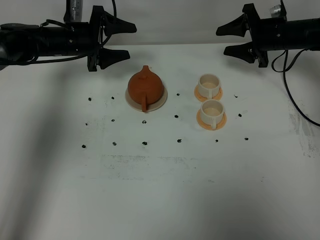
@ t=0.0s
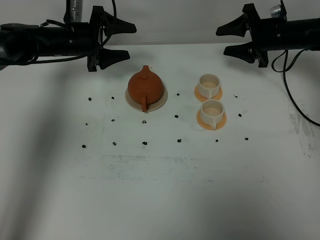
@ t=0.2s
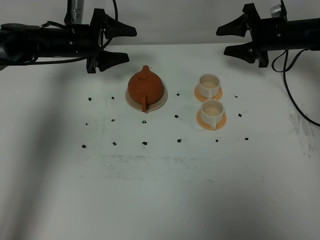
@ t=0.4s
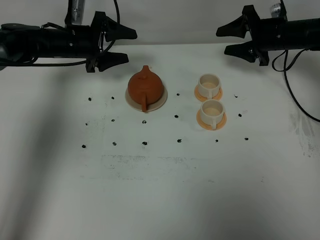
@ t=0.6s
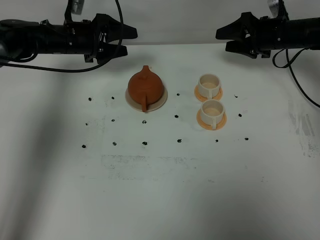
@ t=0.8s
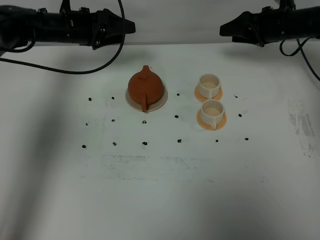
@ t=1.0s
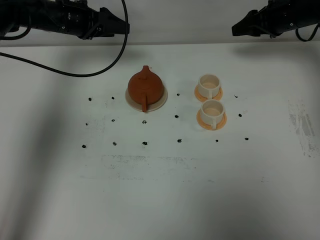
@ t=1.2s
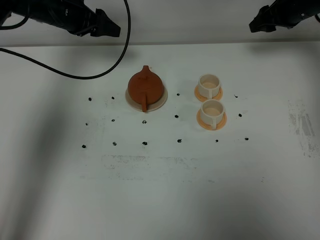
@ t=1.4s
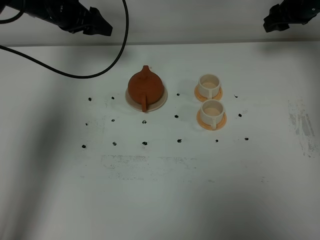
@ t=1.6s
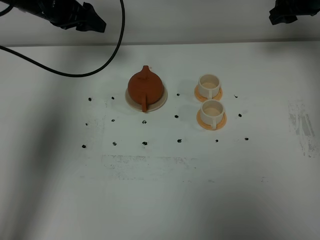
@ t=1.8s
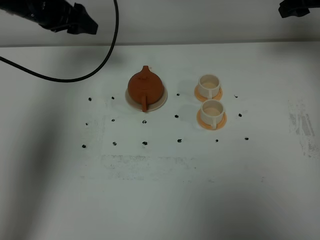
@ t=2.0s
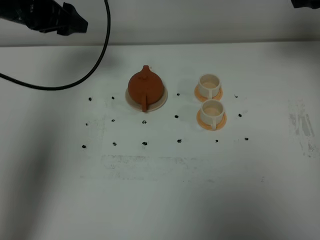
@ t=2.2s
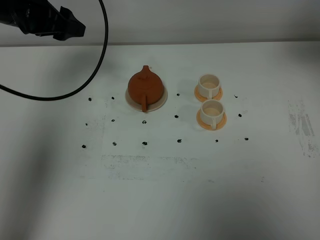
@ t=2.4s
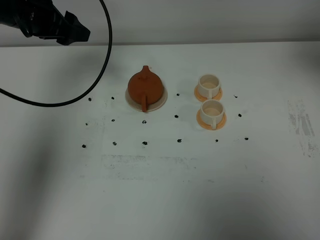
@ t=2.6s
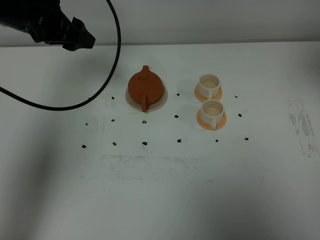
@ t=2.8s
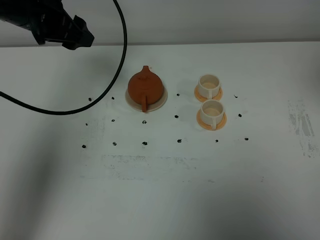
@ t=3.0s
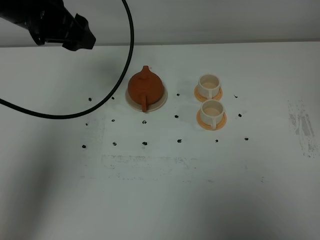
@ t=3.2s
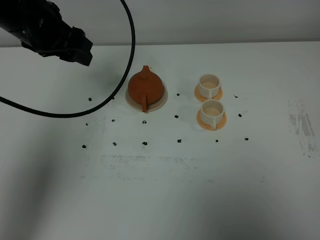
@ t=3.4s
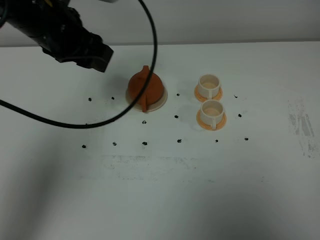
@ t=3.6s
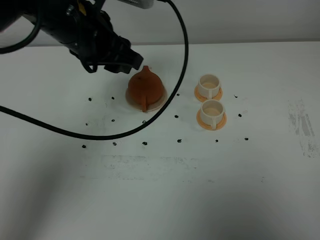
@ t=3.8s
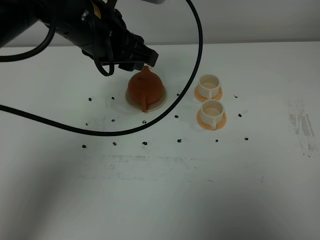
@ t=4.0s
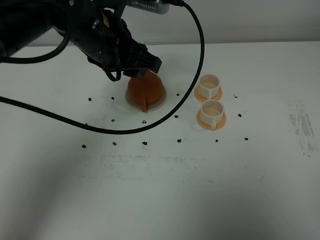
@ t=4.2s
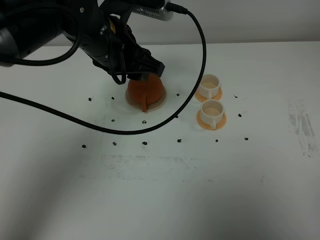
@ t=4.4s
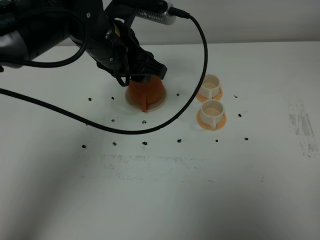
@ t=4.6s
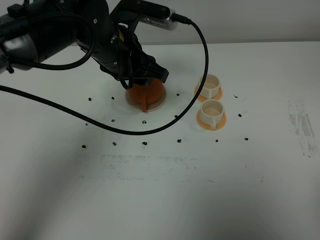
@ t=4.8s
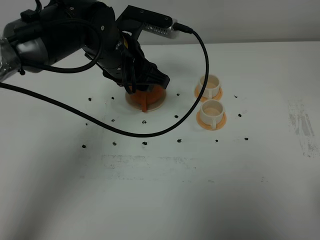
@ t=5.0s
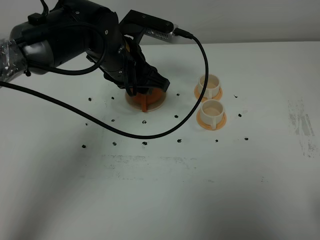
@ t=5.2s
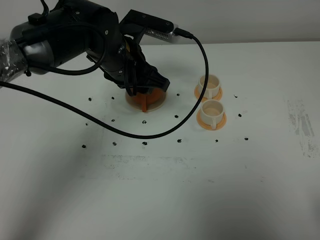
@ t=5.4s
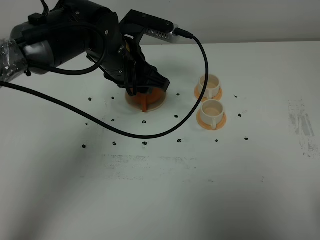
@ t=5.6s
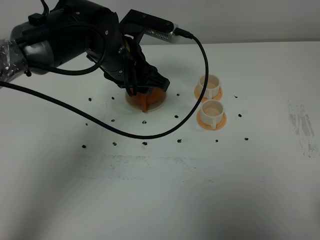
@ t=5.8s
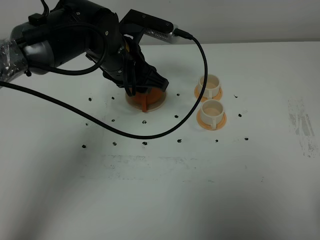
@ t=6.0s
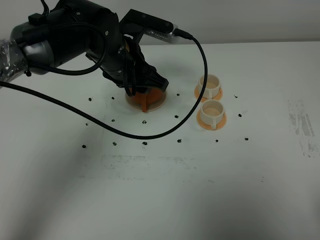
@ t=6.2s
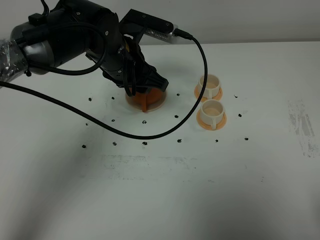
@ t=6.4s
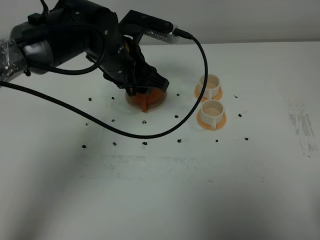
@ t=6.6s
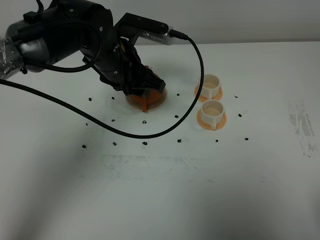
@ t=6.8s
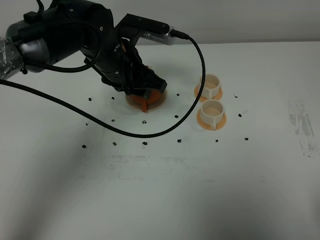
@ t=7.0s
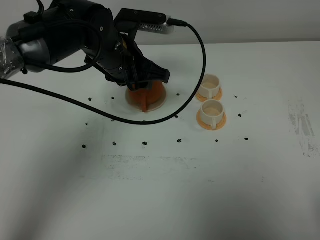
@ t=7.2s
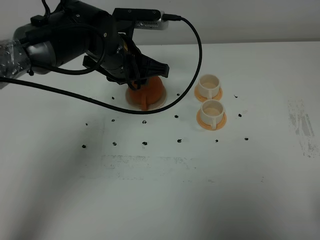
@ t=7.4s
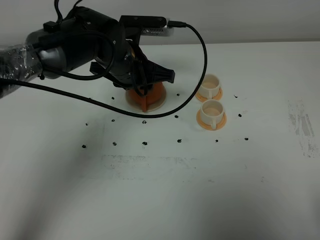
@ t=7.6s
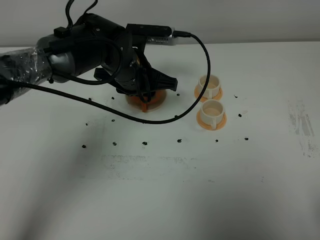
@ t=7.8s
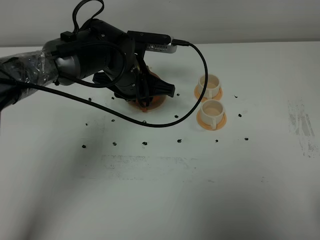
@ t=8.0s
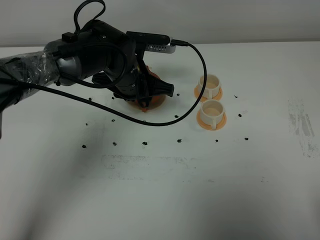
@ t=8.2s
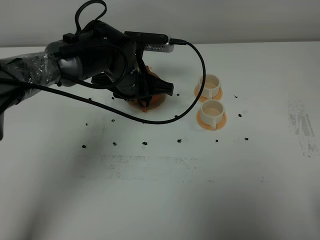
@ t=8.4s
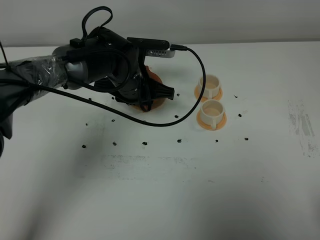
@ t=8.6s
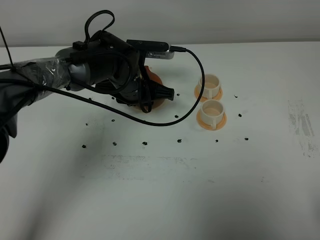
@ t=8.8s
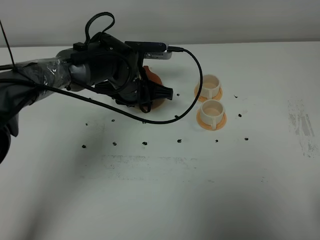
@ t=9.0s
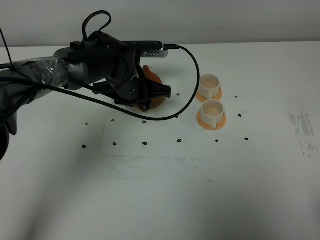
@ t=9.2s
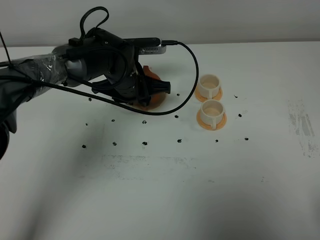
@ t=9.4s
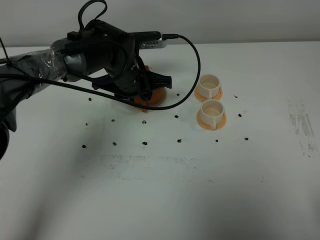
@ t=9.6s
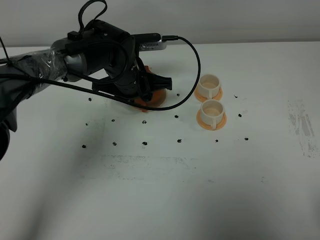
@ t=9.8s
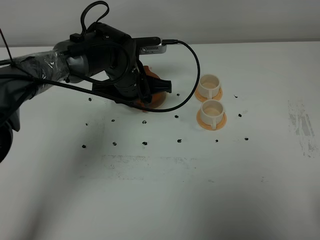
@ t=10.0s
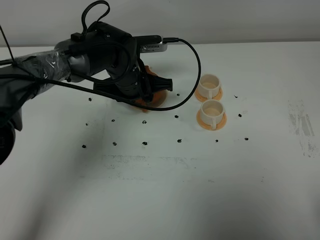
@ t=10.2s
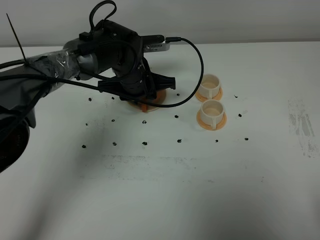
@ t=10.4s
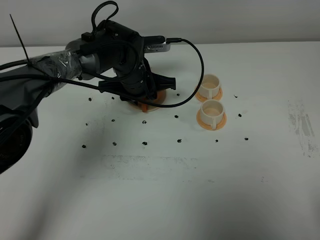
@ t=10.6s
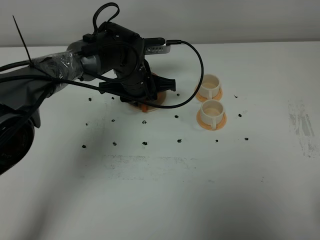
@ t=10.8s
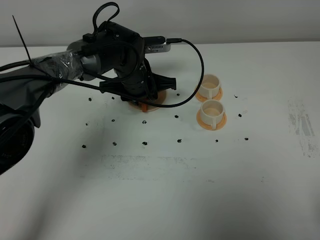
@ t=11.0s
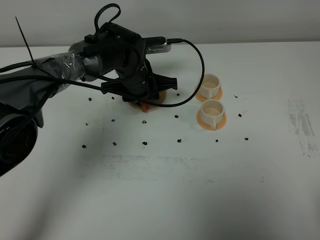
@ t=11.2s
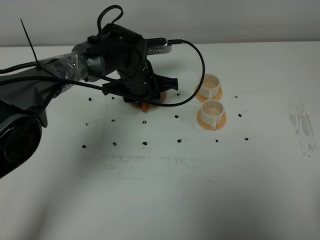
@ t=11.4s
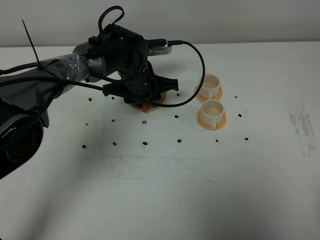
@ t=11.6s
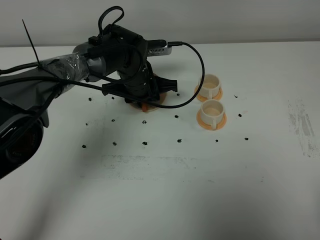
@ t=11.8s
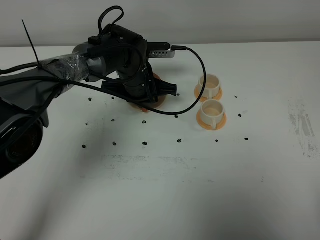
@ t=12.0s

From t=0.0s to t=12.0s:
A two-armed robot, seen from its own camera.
Task of the whole recording: grasp the brown teapot and pour the tea into the two white teacups one by one, put the brown teapot back in its original place.
From t=0.0s to t=1.6s: The two grippers go roughly 10 cm upward.
From t=1.6s to t=3.0s: The left gripper shifts about 15 cm backward and upward, while the right gripper goes about 40 cm backward and upward.
From t=3.0s to t=4.4s: The left gripper heads to the right, covering about 10 cm. Meanwhile the right gripper moves backward and downward, some 20 cm.
From t=4.4s to t=6.0s: The right gripper shifts approximately 10 cm downward, while the left gripper changes place by roughly 5 cm.
From t=6.0s to t=7.6s: The grippers stay close to where they were, moving slightly.
From t=7.6s to t=9.0s: The left gripper travels downward by approximately 5 cm.
From t=9.0s to t=10.4s: There are only small adjustments of the grippers.
From t=10.4s to t=12.0s: The left gripper closes.

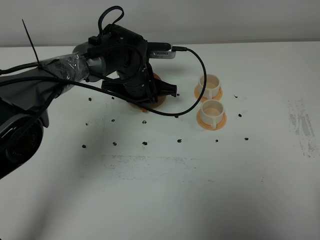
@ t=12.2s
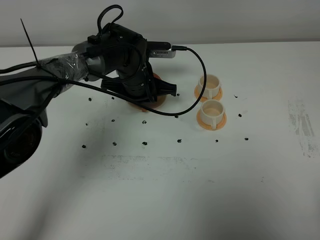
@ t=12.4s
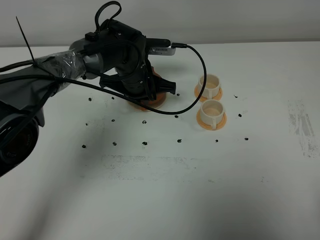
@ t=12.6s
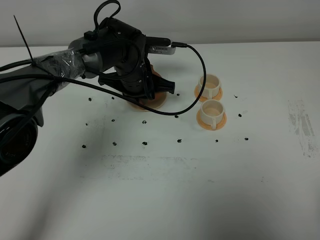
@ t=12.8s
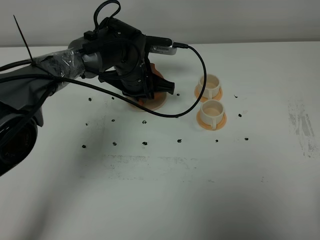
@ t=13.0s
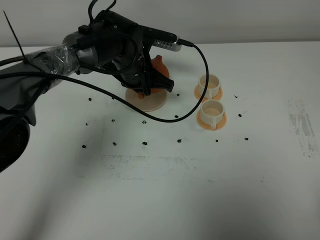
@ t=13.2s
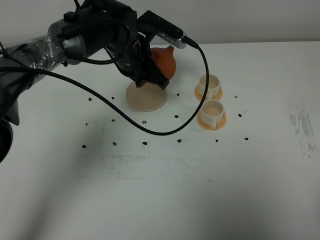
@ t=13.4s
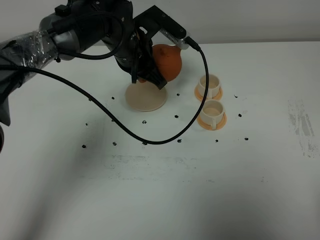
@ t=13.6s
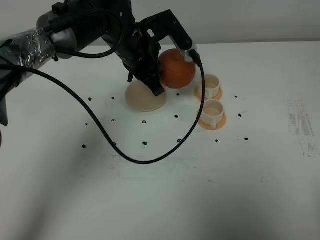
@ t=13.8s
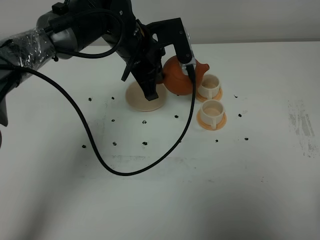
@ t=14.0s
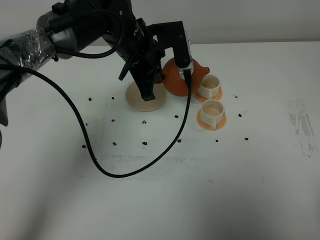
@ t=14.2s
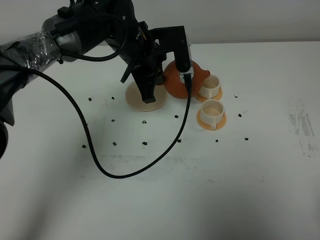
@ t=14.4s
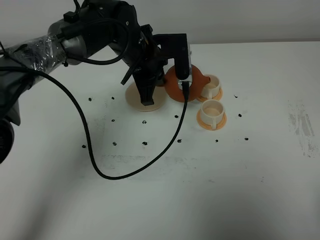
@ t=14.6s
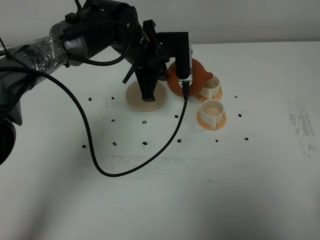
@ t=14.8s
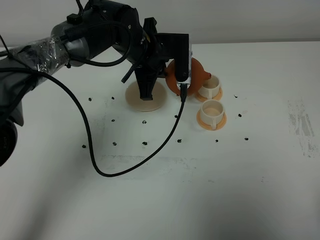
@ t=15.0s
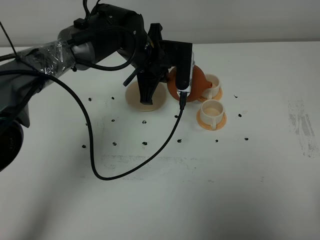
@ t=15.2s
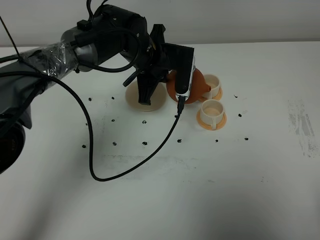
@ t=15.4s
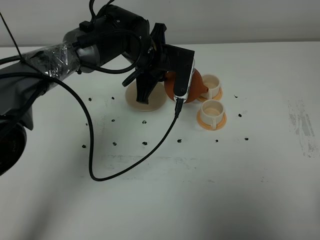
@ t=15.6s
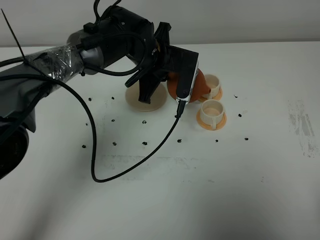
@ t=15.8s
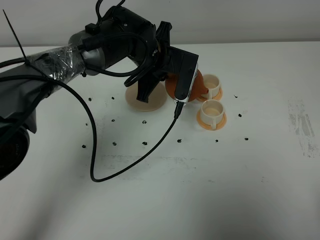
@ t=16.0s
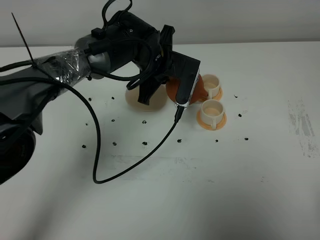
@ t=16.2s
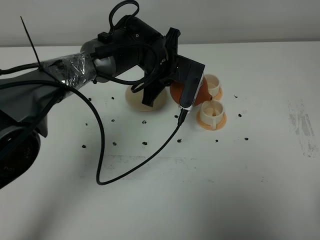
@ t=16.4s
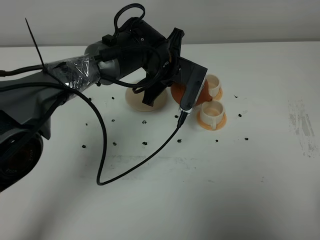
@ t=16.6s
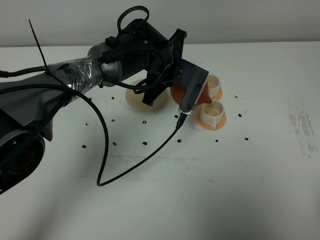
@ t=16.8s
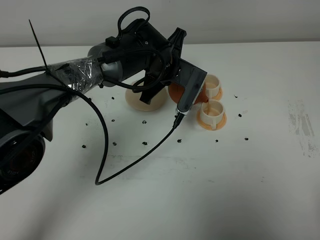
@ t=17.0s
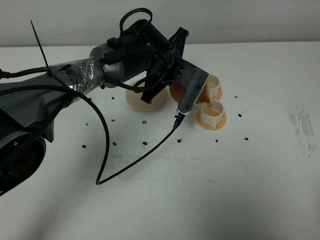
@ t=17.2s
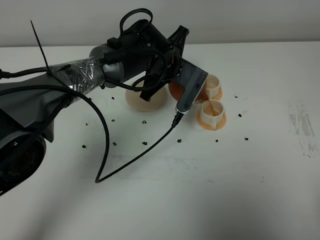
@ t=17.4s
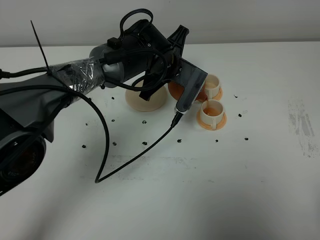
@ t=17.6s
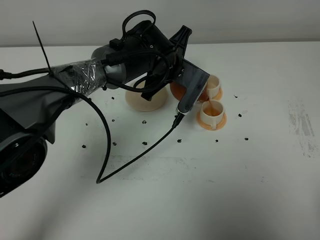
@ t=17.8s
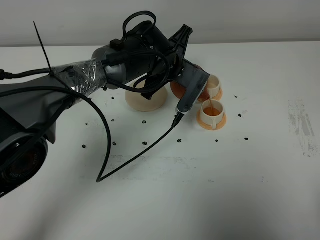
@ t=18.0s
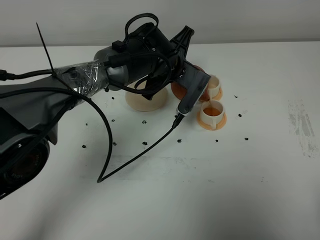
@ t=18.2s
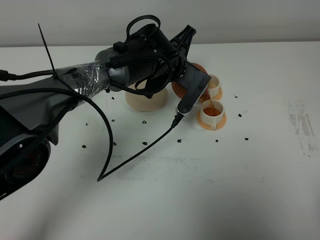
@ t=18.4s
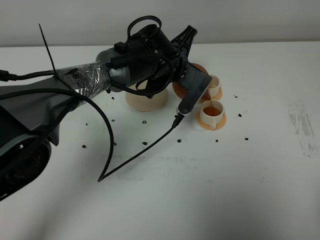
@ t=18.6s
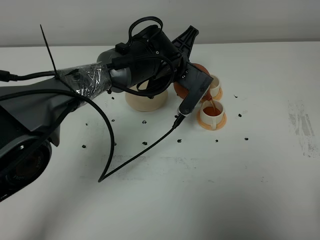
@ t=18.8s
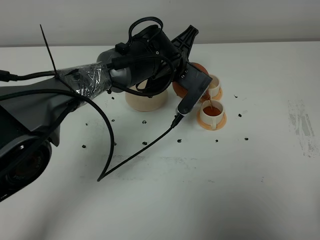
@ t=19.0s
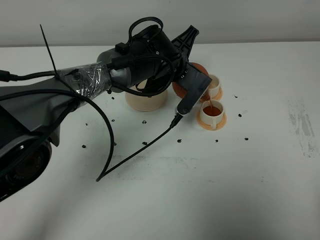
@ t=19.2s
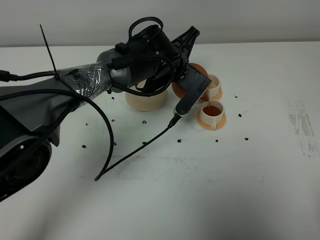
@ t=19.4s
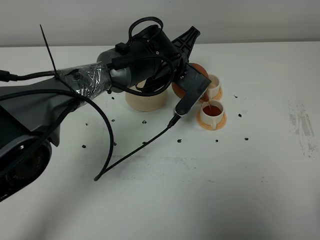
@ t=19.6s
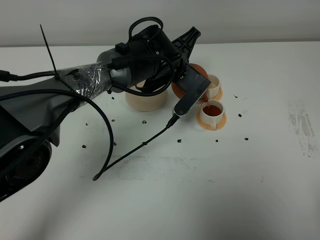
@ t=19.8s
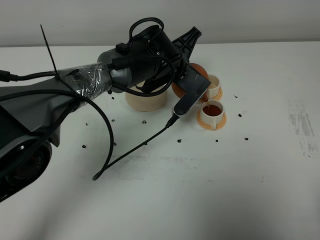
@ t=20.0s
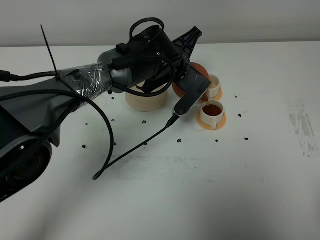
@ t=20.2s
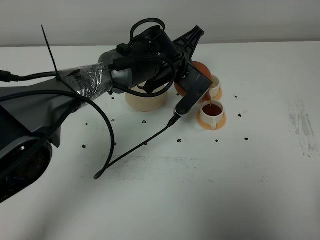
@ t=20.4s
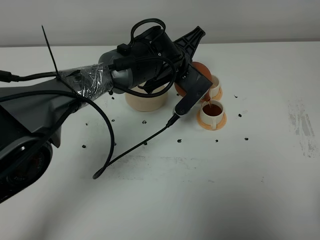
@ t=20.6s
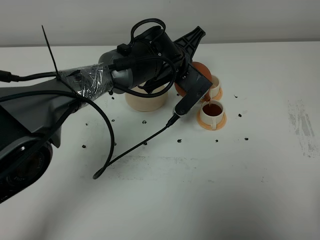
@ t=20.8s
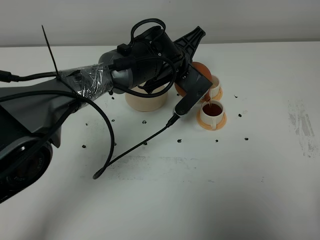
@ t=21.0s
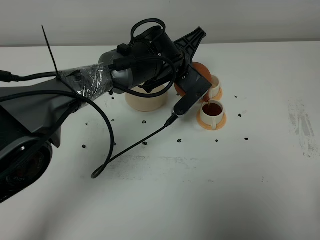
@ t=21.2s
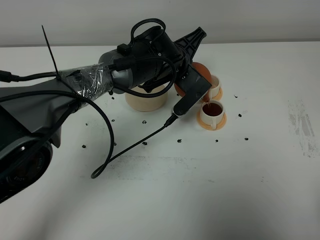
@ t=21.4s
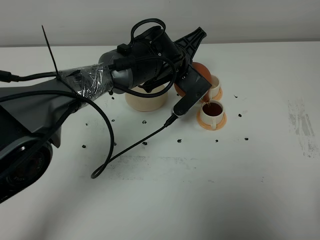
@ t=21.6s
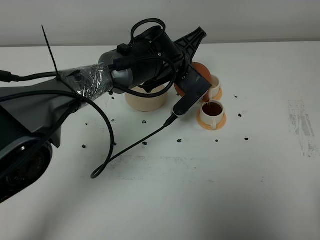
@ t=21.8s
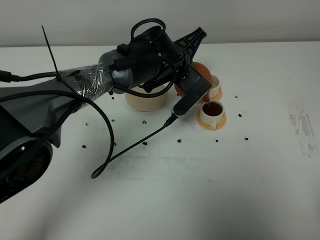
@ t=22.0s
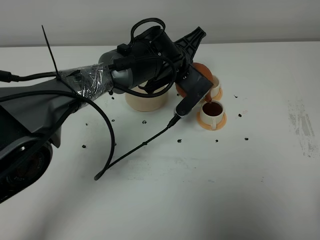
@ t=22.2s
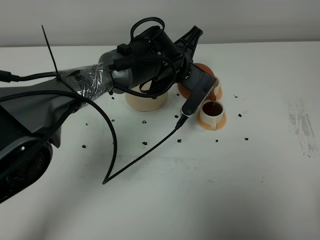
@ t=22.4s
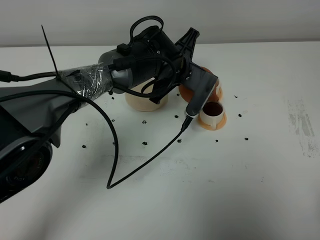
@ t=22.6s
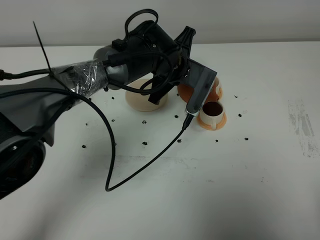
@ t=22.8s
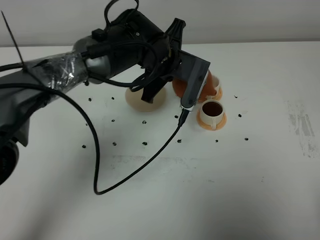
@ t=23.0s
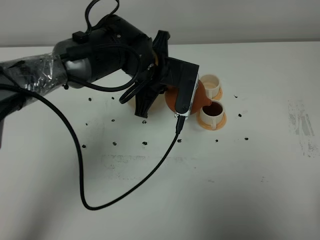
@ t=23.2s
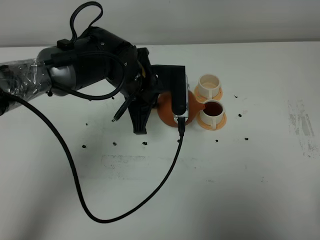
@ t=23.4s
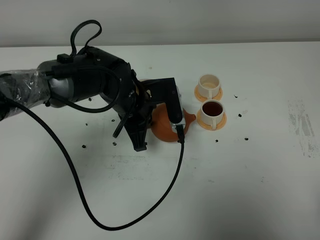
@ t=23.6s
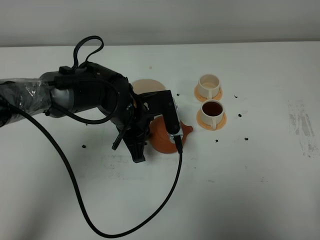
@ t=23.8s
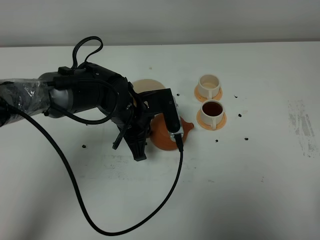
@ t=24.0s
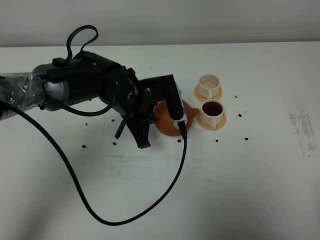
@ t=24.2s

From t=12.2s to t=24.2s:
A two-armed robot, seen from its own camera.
Task of the whole recording: grasp the brown teapot and pour the tea into the two white teacups one by one, put the brown teapot back in its original place.
Step, from t=13.2s to t=22.4s: Pour tea into the teacup with the left gripper.
From t=12.2s to t=13.8s: The left gripper moves upward, about 10 cm.
From t=16.6s to t=18.2s: There are only small adjustments of the grippers.
From t=18.2s to t=22.6s: The grippers move only a little.
From t=22.6s to t=24.2s: The left gripper heads to the left and backward, covering approximately 10 cm.
